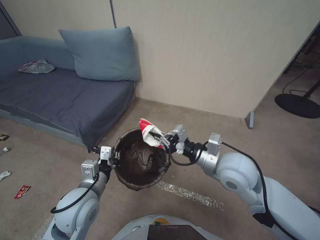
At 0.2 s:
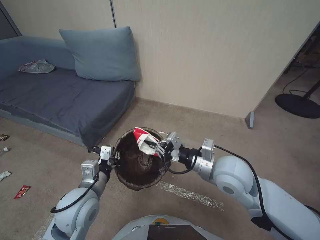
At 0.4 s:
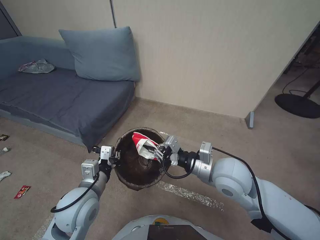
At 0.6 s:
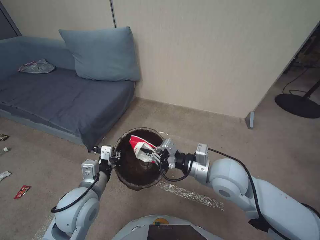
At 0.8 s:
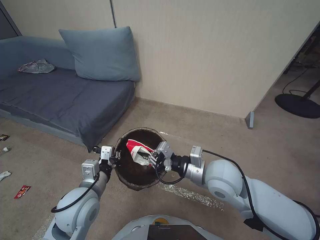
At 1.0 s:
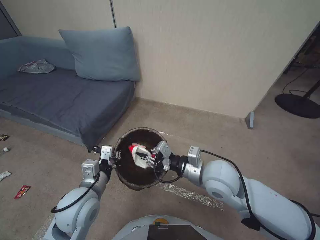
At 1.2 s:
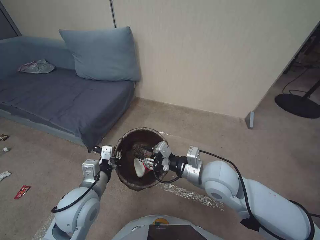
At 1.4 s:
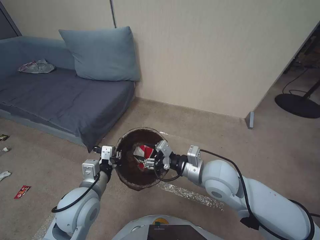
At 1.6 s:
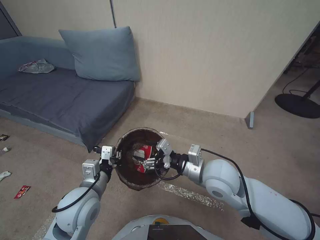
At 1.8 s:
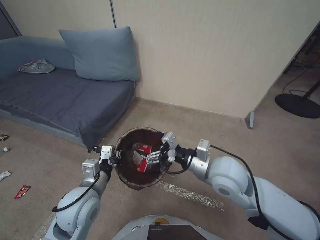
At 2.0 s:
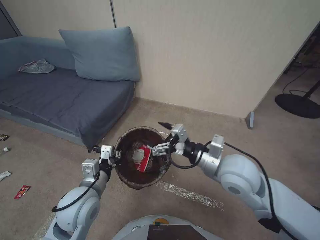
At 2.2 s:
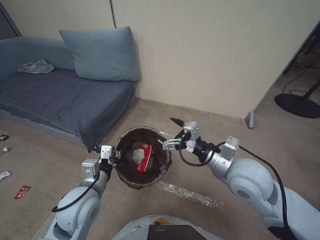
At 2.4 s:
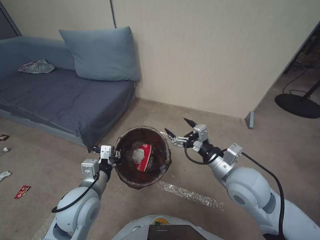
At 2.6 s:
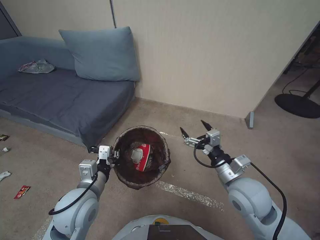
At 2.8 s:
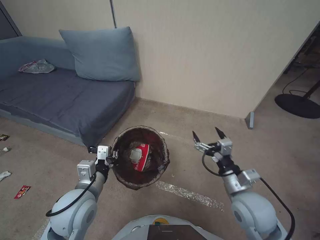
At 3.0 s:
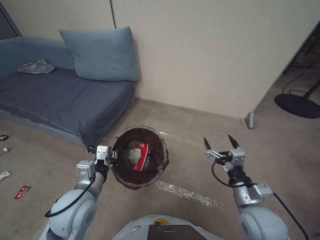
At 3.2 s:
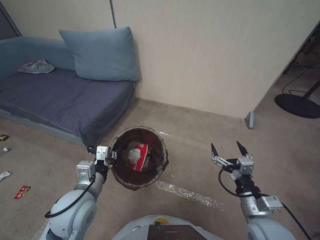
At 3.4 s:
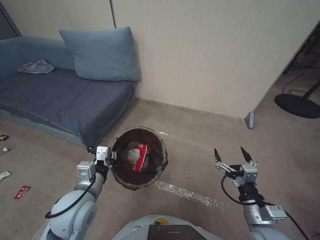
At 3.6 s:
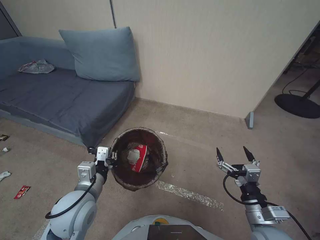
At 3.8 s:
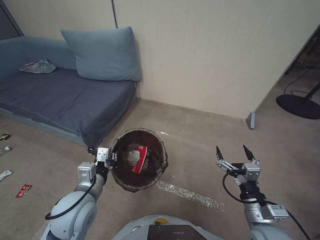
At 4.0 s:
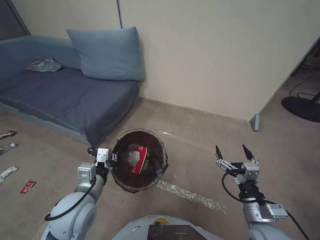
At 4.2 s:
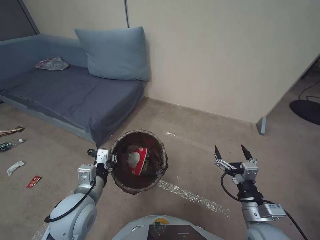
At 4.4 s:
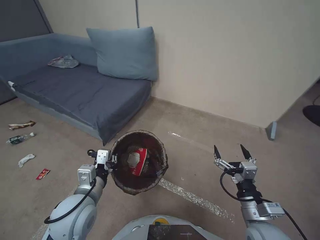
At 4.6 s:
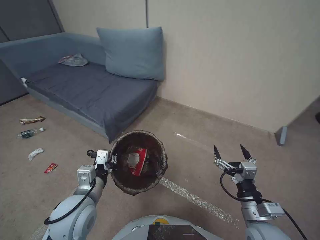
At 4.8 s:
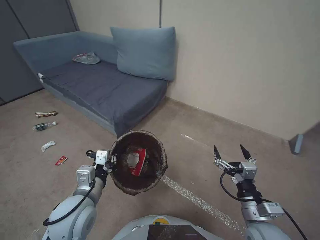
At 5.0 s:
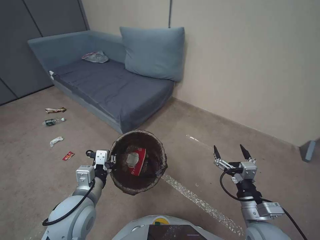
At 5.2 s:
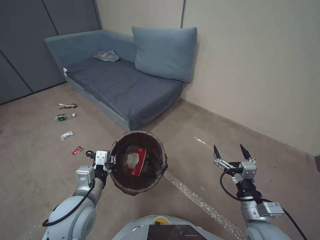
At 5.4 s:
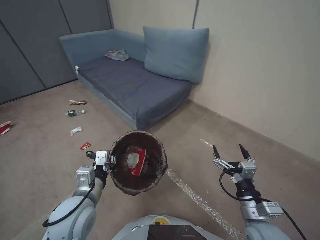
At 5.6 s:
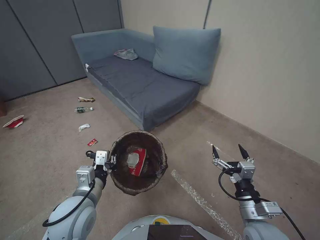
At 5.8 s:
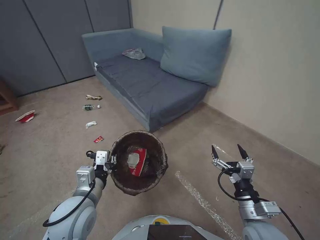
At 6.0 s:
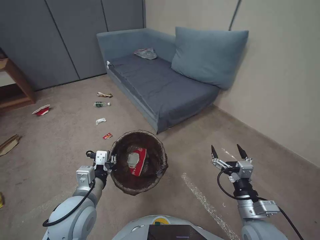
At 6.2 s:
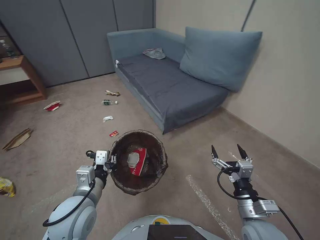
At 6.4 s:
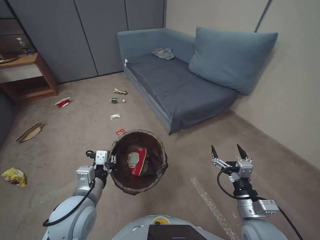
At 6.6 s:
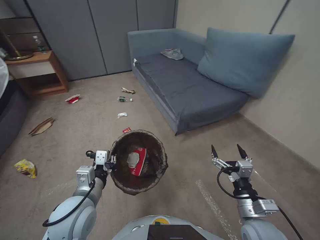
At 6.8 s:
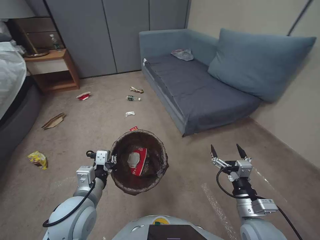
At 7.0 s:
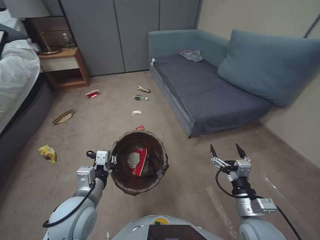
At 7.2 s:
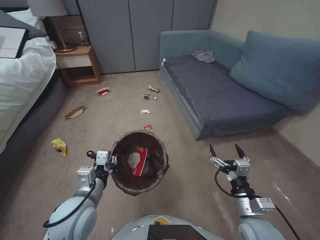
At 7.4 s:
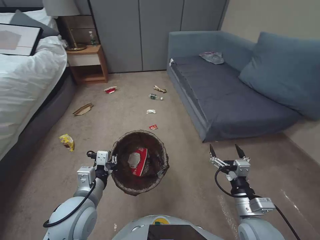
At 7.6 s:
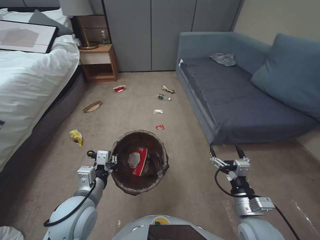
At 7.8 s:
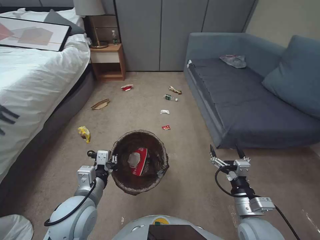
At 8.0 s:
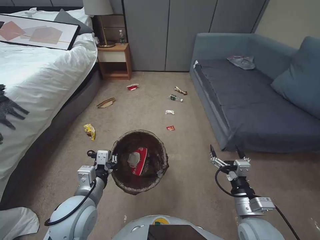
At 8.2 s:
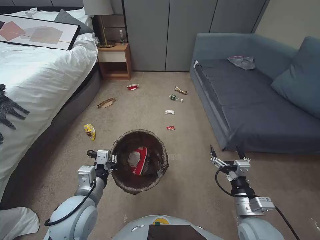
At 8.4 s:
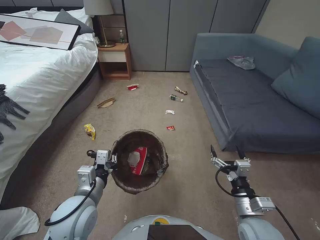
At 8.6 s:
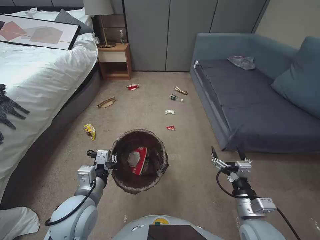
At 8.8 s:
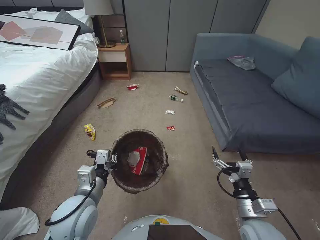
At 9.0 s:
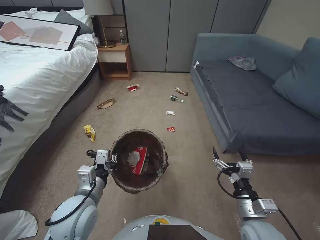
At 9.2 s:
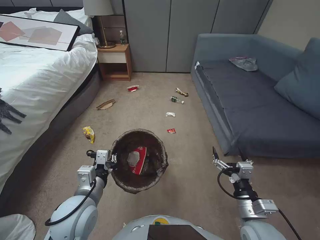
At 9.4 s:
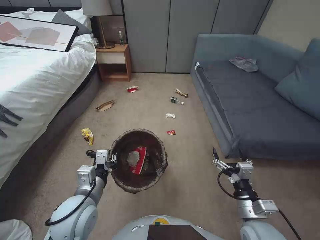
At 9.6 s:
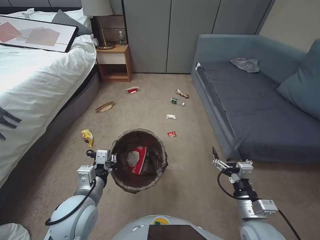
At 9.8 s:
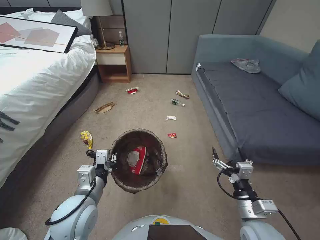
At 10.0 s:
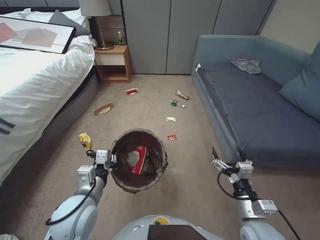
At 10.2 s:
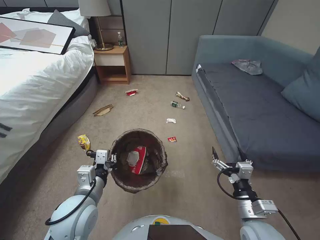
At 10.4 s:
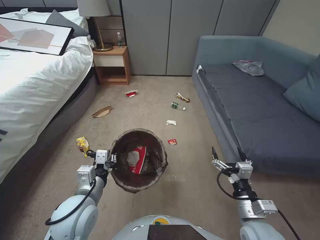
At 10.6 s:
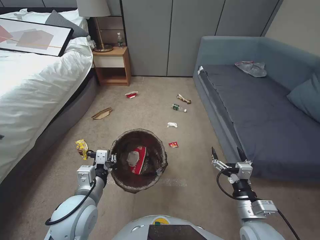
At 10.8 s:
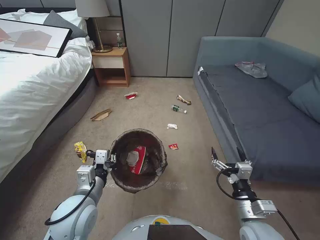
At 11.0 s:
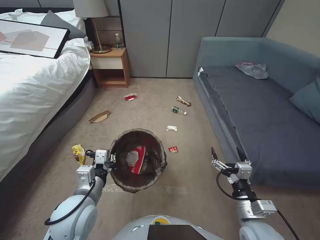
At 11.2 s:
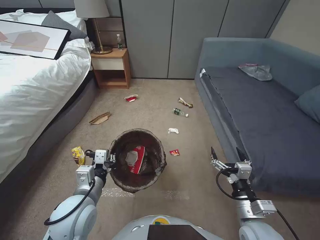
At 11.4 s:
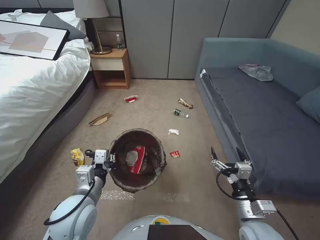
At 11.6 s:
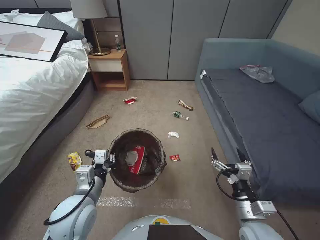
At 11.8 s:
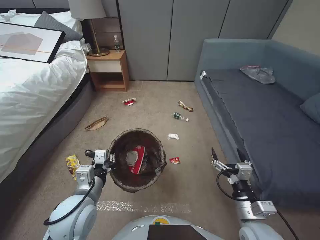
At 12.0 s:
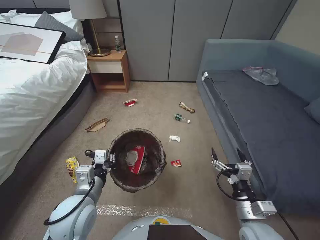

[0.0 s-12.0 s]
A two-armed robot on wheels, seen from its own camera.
Task of the whole recording: Pick up the trash bin, then pick up the garbage from the floor and place it into the trash bin.
0.0 to 1.6 s: The right gripper shifts by roughly 5 cm, and opens.
1.6 to 3.0 s: The right gripper moves to the right, backward and downward, about 15 cm.
3.0 to 4.4 s: The right gripper shifts by approximately 5 cm.
9.0 to 12.0 s: Both grippers stay about where they are.

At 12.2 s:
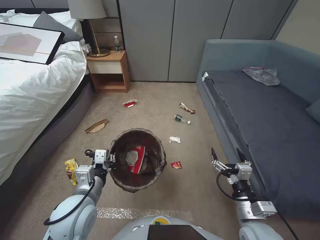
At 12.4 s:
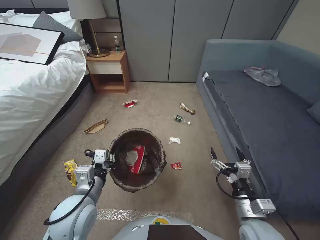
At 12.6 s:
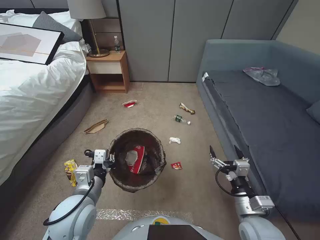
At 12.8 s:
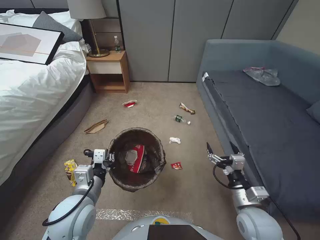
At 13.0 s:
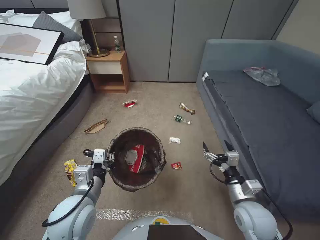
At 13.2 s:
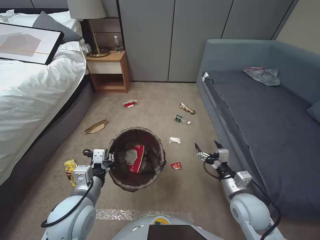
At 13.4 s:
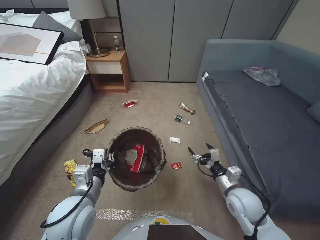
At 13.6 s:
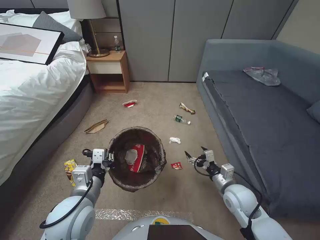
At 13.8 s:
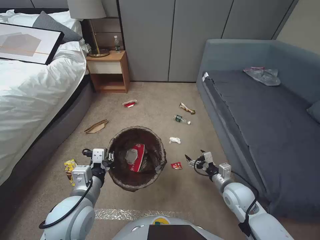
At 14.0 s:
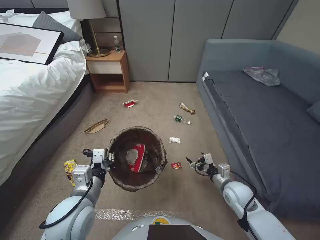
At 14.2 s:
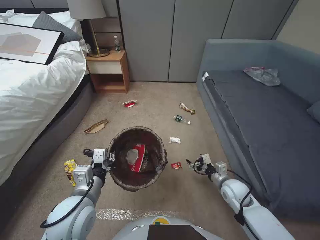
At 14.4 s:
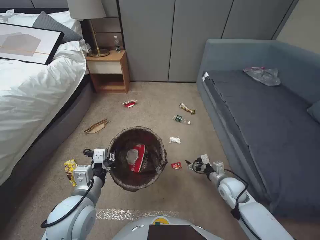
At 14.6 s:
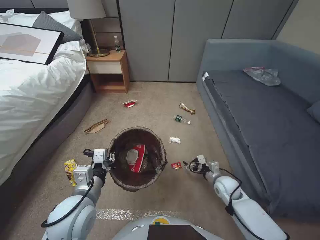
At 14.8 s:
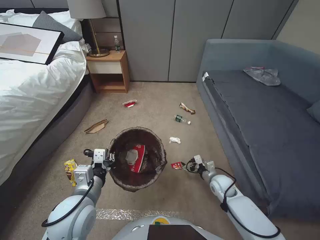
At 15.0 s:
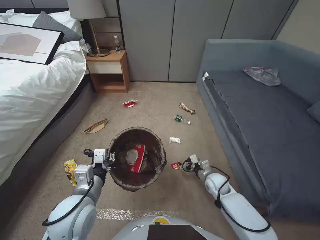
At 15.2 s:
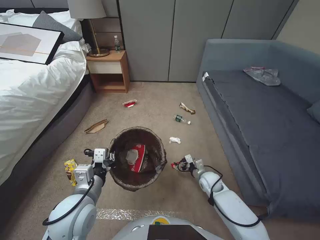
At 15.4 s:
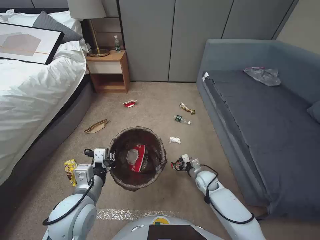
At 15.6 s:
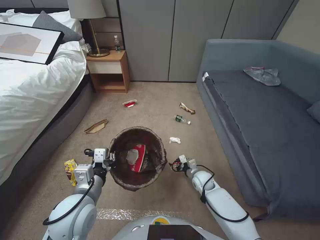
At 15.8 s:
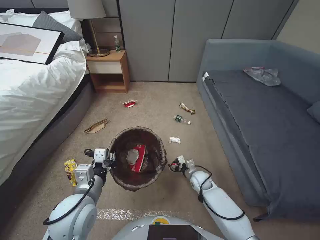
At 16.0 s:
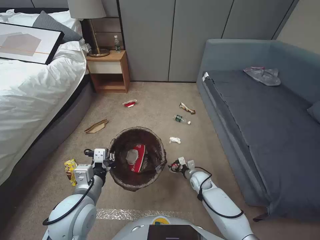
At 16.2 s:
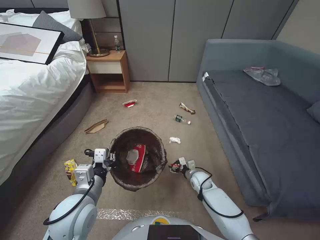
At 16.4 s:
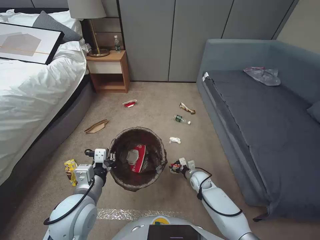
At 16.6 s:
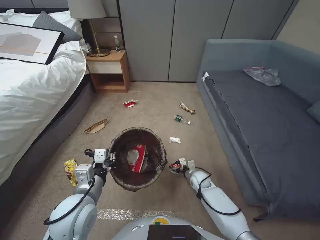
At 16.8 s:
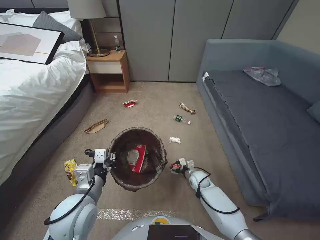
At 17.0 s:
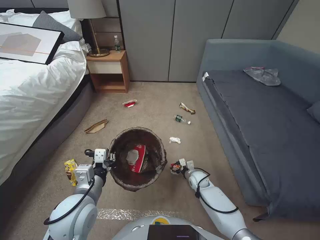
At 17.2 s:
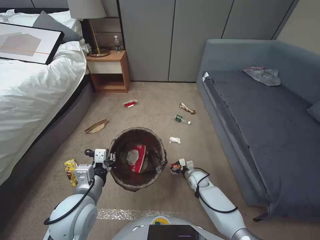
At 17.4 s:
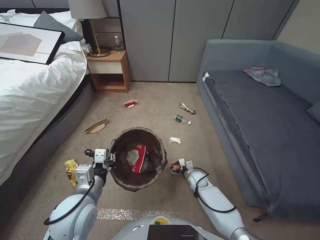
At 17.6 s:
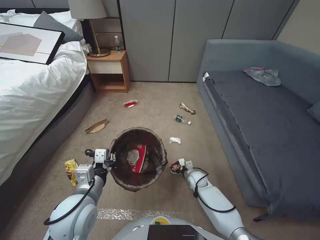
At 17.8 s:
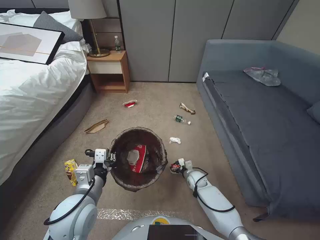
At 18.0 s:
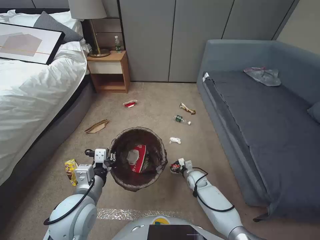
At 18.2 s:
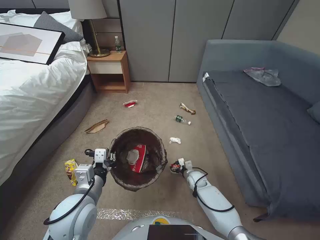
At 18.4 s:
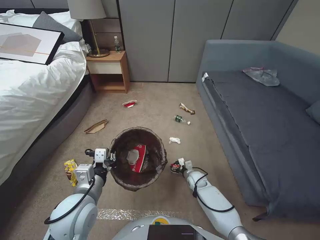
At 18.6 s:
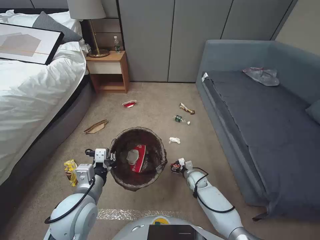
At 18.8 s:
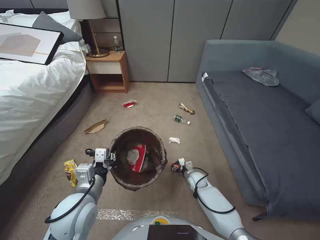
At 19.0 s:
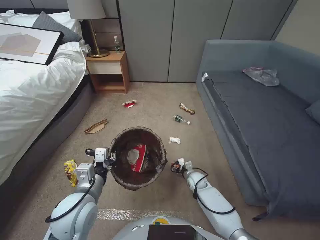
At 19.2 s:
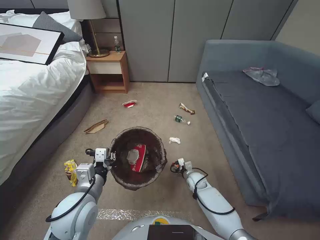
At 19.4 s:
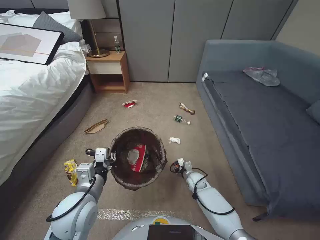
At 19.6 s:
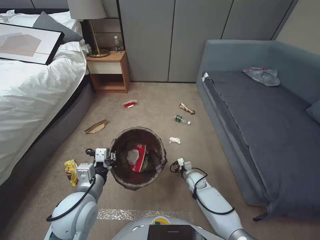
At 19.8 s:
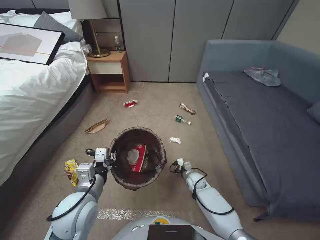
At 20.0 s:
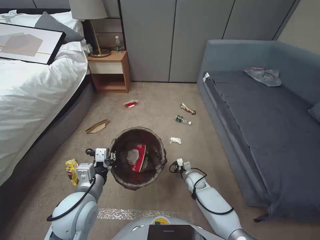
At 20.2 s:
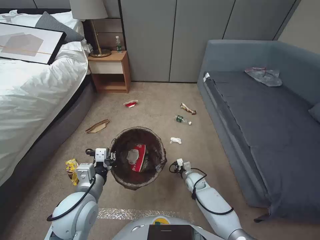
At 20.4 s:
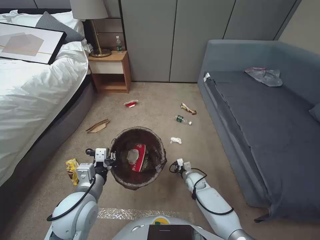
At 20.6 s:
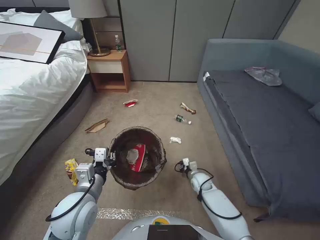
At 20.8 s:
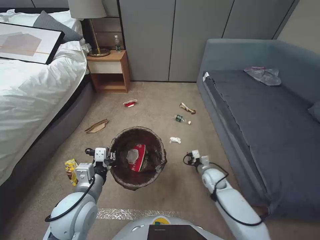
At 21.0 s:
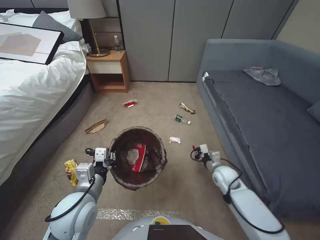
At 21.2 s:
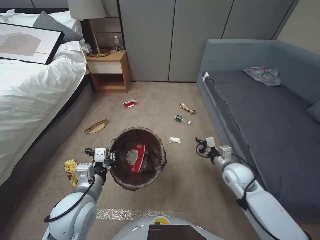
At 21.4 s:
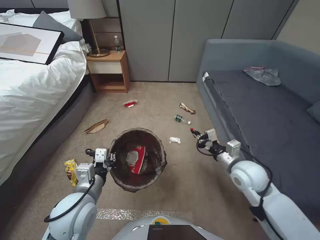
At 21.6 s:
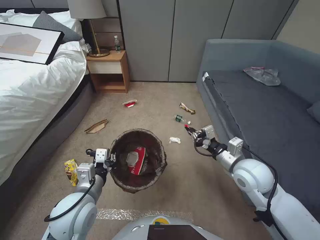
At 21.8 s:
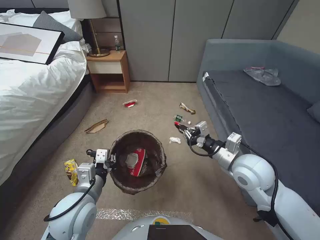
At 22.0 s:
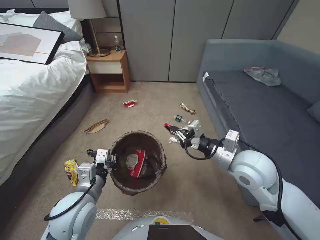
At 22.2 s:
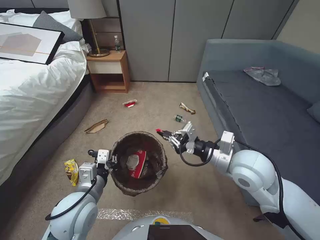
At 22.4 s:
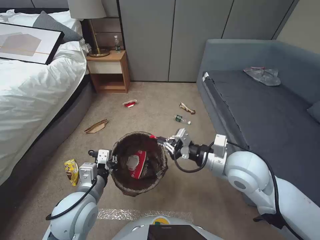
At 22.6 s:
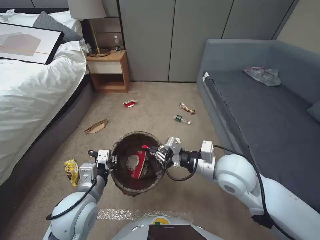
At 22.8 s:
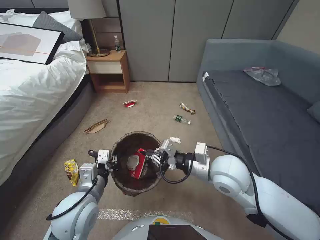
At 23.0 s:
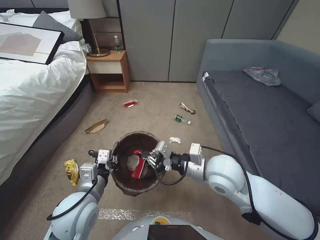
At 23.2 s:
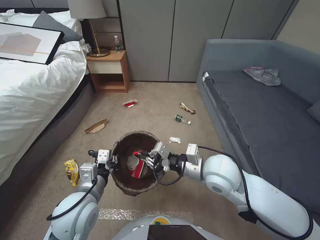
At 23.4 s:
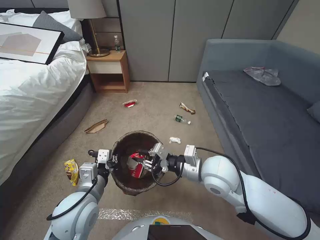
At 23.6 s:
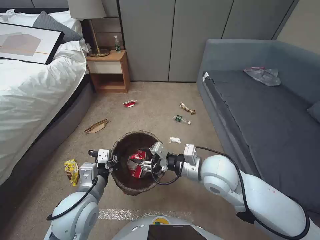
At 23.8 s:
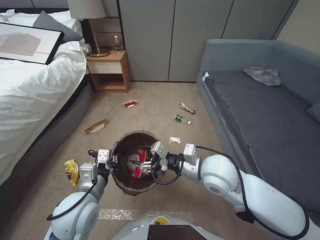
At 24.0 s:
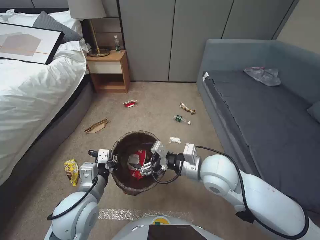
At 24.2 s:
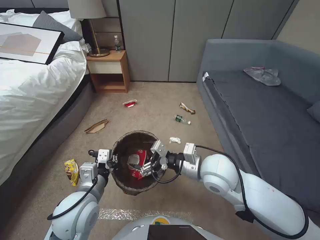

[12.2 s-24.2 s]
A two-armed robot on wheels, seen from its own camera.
Task of the whole recording: Pick up the trash bin, then pick up the garbage from the floor and place it into the trash bin.
12.2 to 13.8 s: The right gripper travels forward and downward by roughly 15 cm.
13.8 to 15.2 s: The right gripper heads downward and forward, covering about 15 cm.
15.2 to 16.6 s: The right gripper shifts about 5 cm downward.
16.6 to 18.2 s: The grippers move only a little.
18.2 to 19.8 s: The right gripper closes.
19.8 to 21.2 s: The right gripper moves upward and to the right, some 20 cm.
21.2 to 22.6 s: The right gripper shifts about 20 cm upward and to the left.
22.6 to 24.2 s: The right gripper travels to the left by approximately 5 cm, and opens its fingers.
